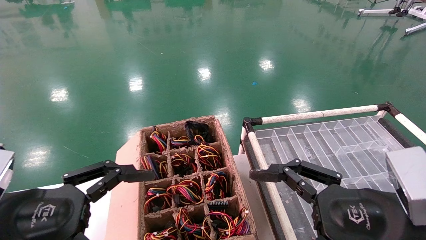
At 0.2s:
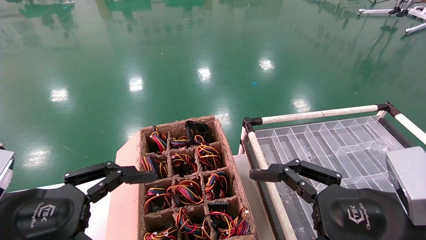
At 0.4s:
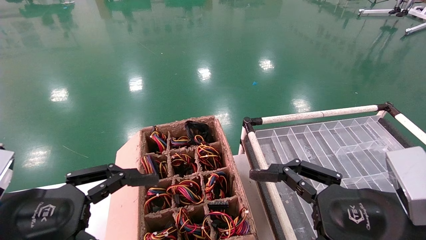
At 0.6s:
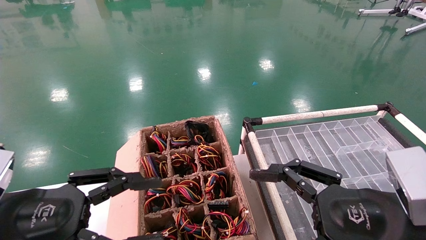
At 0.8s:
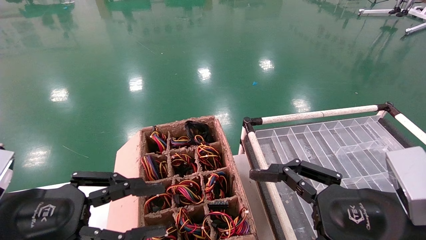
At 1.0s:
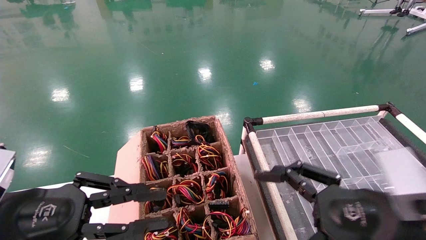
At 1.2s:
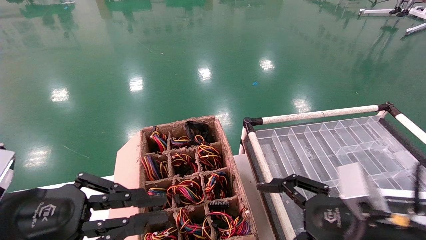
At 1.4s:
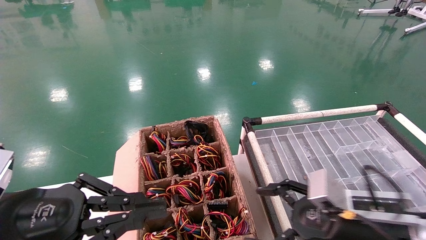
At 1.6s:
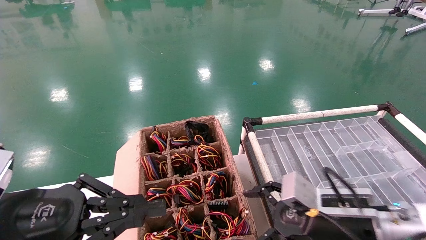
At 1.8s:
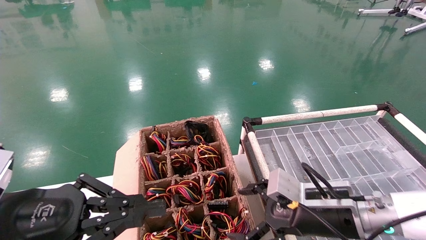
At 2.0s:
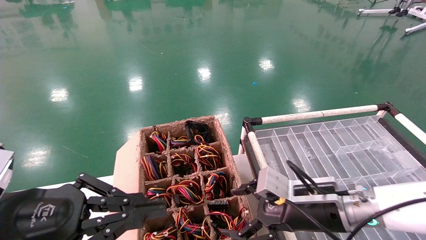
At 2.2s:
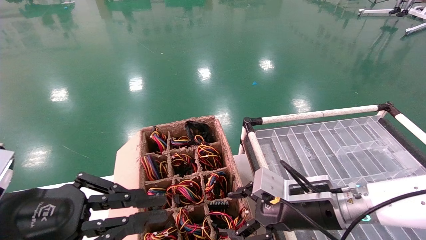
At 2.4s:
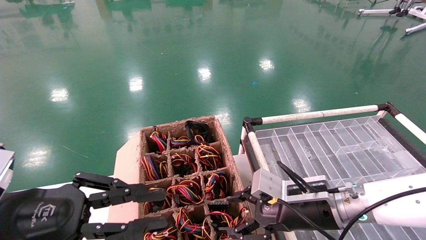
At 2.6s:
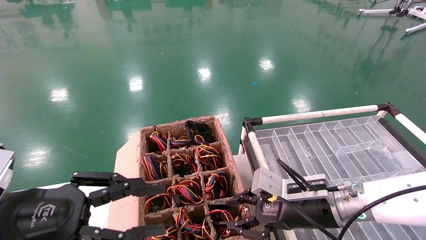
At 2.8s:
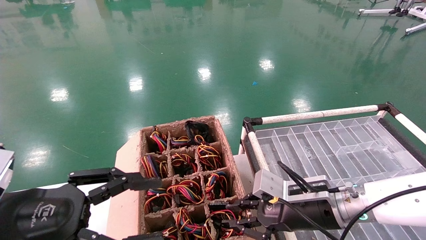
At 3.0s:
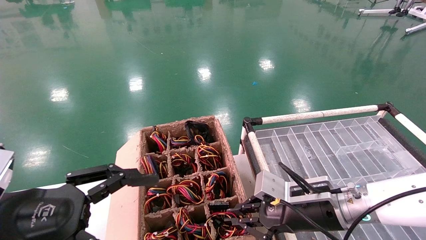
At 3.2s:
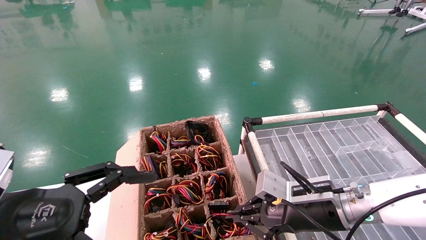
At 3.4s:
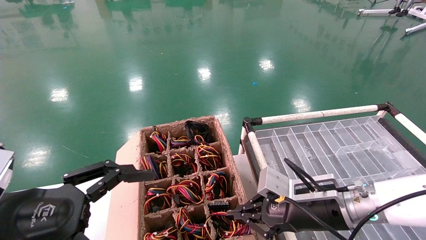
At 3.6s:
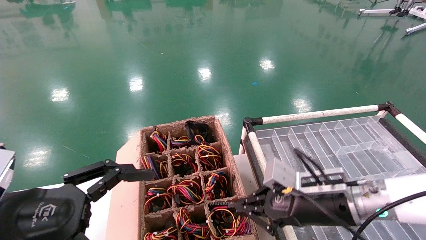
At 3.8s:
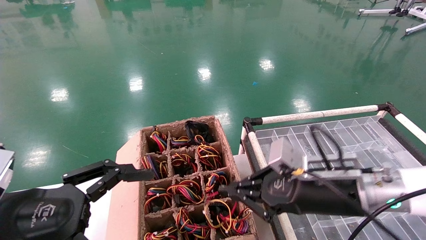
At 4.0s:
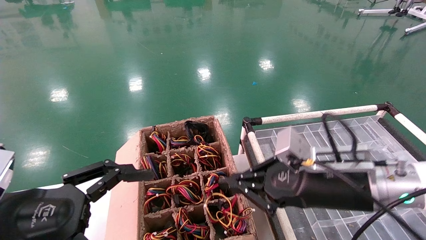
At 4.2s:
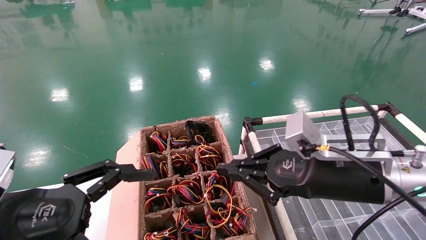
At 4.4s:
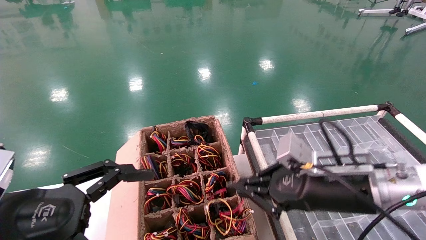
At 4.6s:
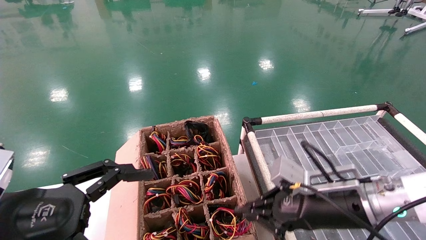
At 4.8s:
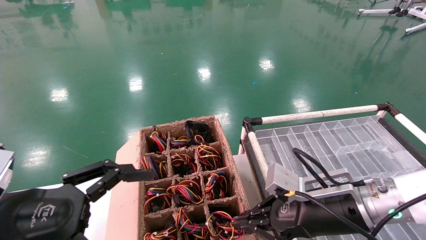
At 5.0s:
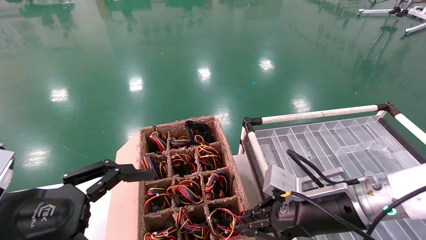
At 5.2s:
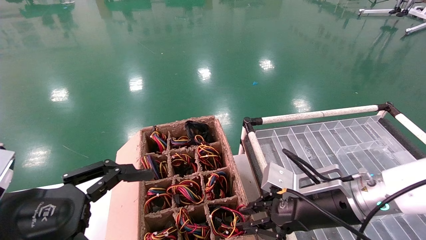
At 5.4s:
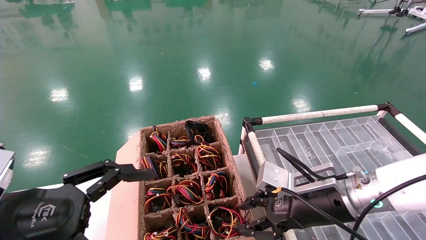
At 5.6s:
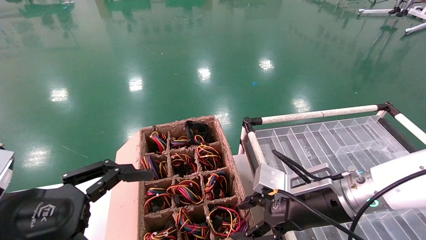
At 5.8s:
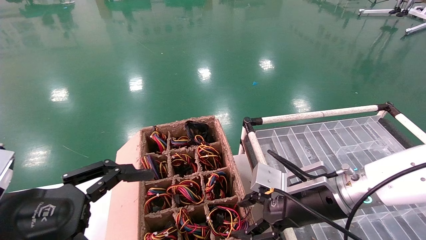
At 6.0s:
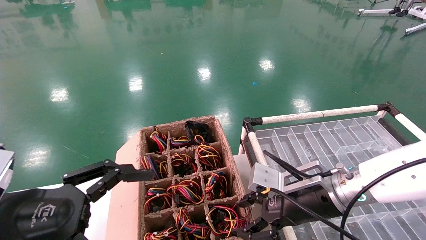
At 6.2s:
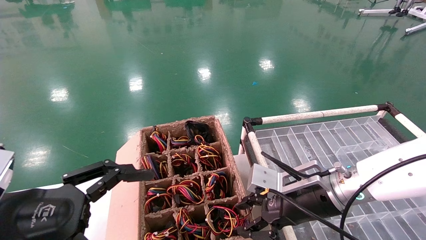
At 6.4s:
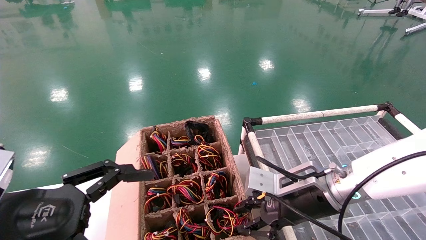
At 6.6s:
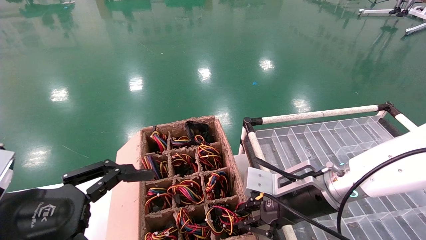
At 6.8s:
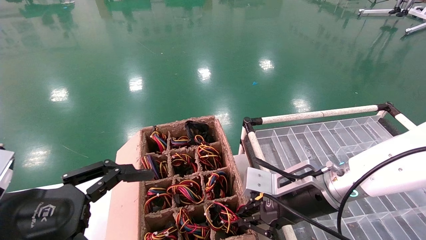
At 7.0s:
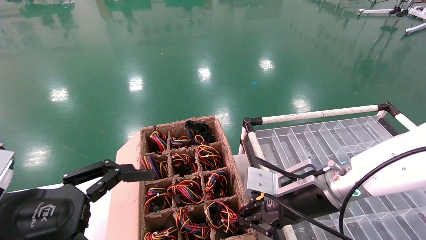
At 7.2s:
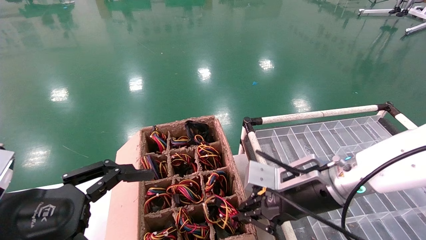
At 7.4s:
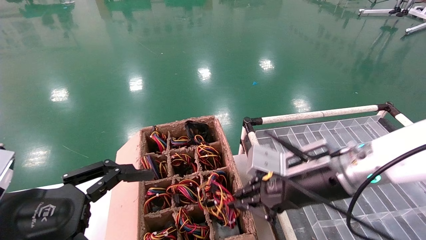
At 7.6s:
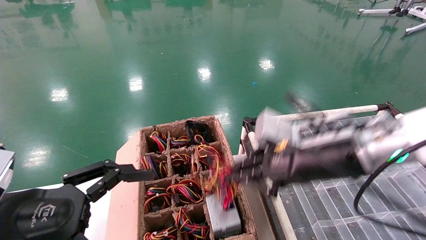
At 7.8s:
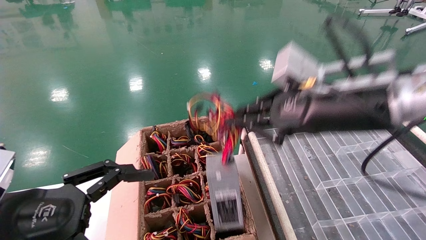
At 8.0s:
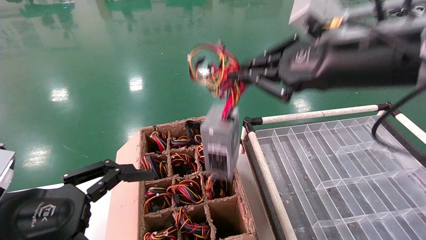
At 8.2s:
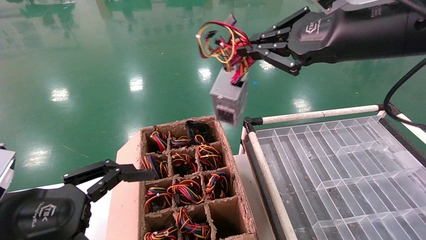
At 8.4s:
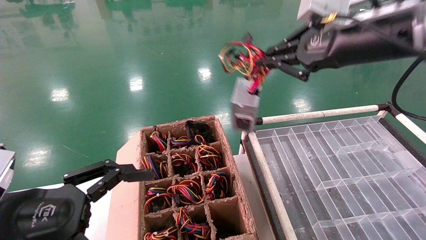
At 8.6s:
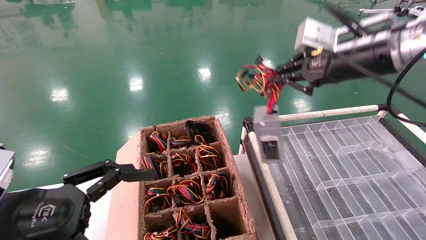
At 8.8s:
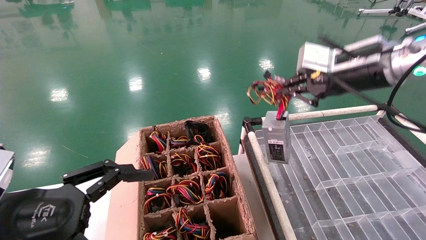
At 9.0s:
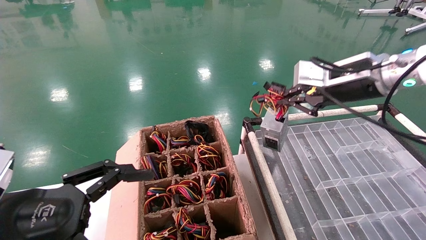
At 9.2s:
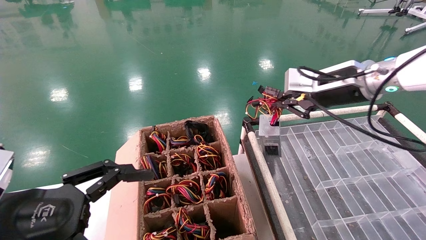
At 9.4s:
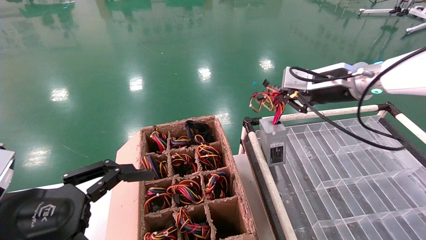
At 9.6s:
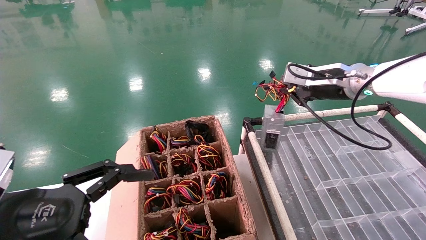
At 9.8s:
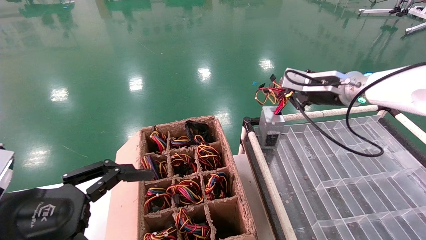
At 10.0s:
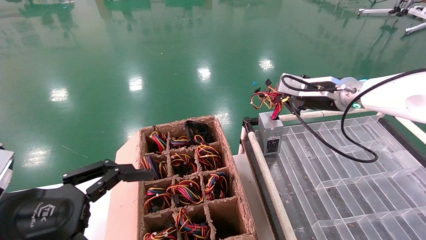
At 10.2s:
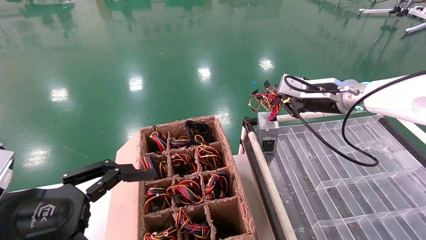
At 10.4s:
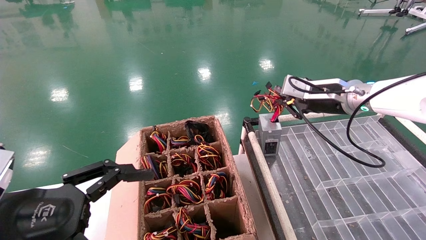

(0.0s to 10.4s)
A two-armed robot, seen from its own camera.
Step, 1.8s - 6.8s: Grab and lift the power supply from the large box.
0.0s - 1.4s: The left gripper closes, while the right gripper is displaced forward and downward by approximately 10 cm.
1.4s - 3.0s: The left gripper opens up, while the right gripper moves forward, some 5 cm, and closes up.
3.0s - 4.4s: The right gripper shifts roughly 5 cm upward. The left gripper opens.
4.4s - 6.0s: The right gripper opens.
6.0s - 7.4s: The right gripper shifts some 5 cm upward, and closes up.
7.4s - 9.0s: The right gripper moves upward, to the right and forward, roughly 20 cm.
9.0s - 10.4s: The right gripper goes roughly 10 cm forward and downward.

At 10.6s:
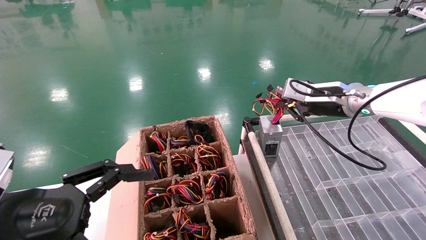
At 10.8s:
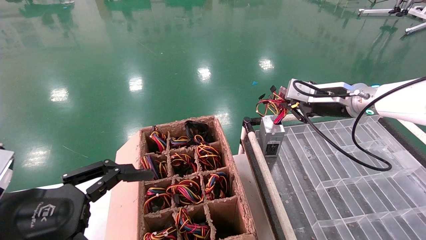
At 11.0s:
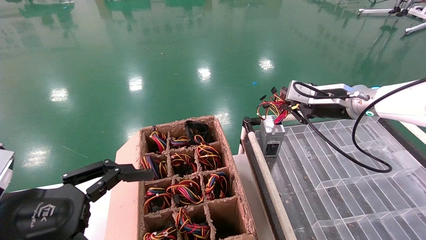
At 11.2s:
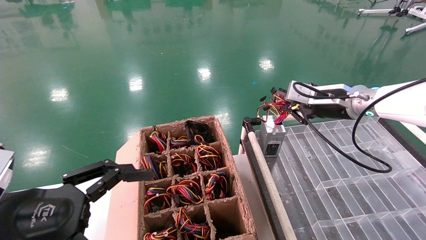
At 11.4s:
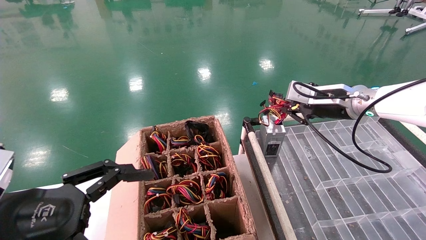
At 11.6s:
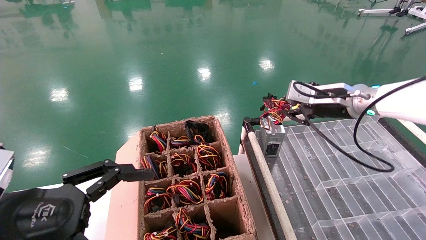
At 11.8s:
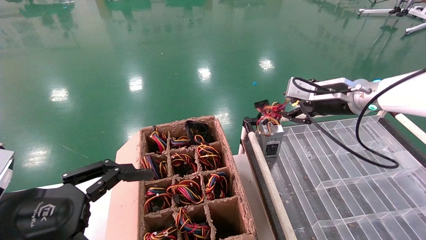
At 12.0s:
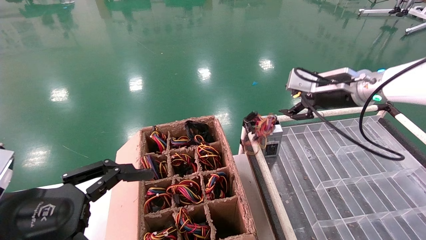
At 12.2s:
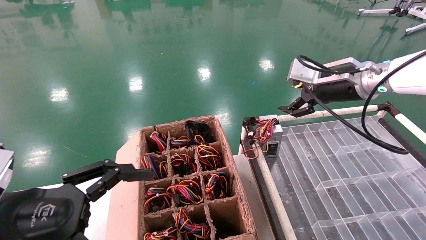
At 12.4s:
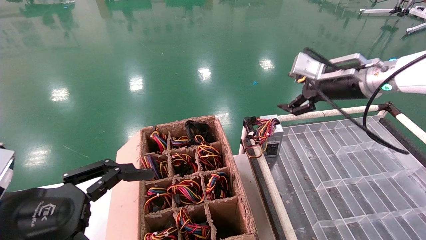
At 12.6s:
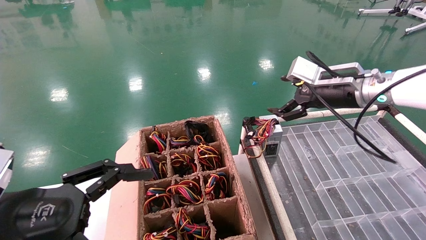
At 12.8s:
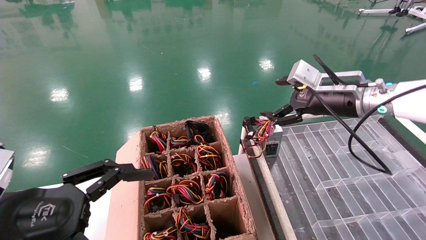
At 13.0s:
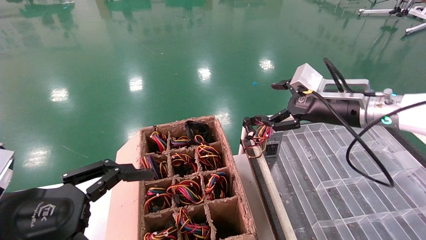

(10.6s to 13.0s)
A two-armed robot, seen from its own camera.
10.6s - 11.8s: The right gripper opens its fingers.
11.8s - 13.0s: The right gripper opens up.

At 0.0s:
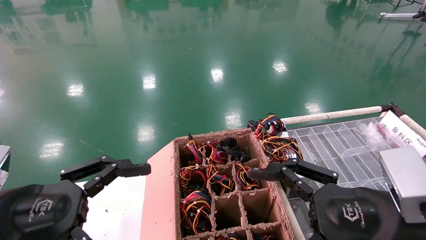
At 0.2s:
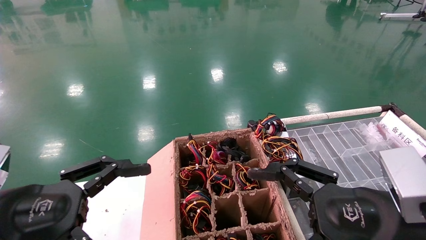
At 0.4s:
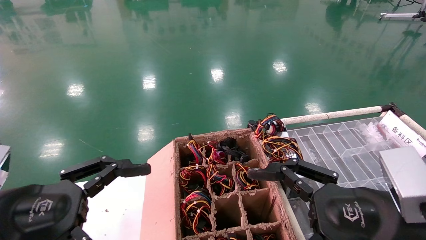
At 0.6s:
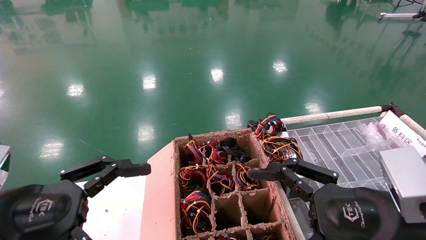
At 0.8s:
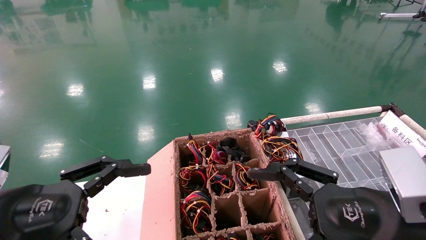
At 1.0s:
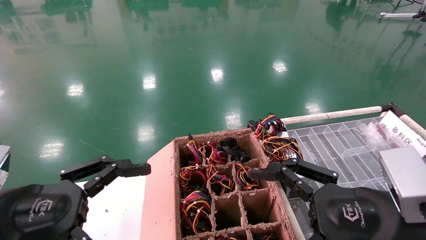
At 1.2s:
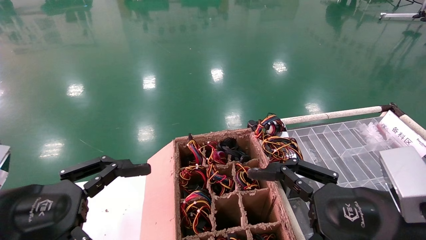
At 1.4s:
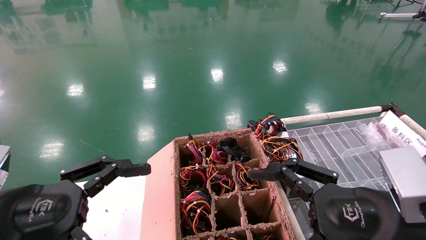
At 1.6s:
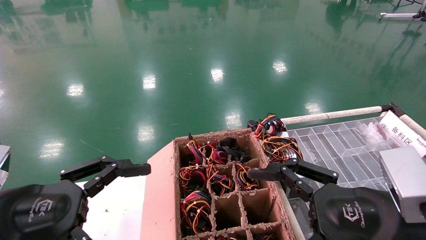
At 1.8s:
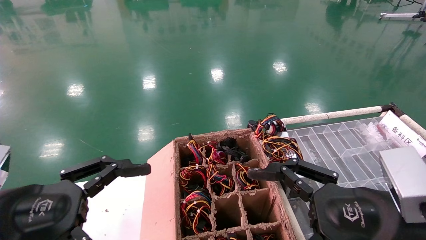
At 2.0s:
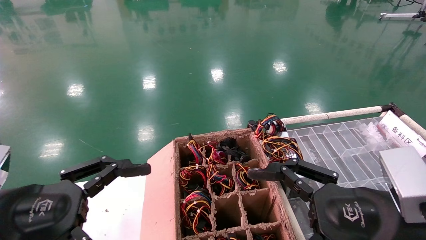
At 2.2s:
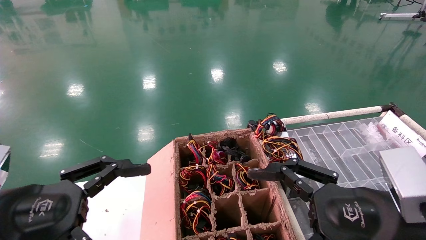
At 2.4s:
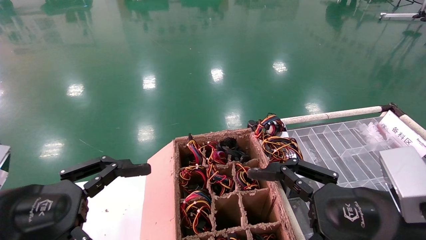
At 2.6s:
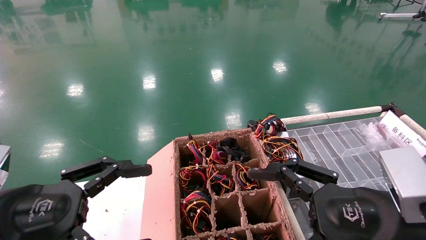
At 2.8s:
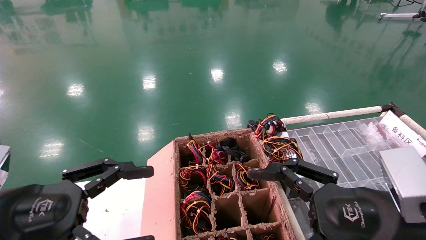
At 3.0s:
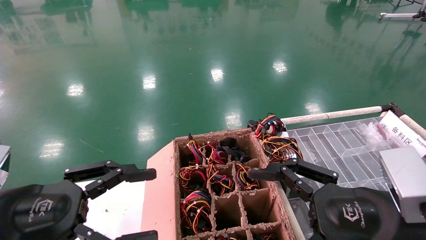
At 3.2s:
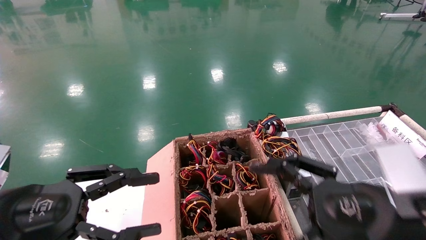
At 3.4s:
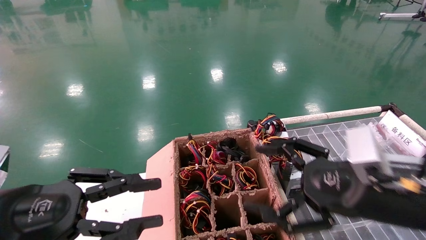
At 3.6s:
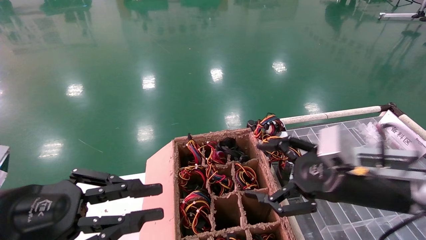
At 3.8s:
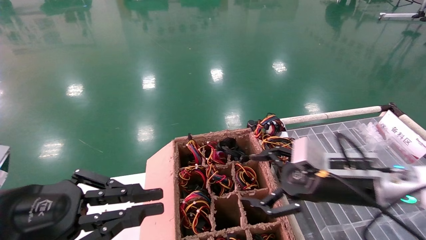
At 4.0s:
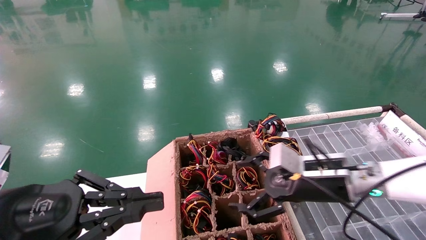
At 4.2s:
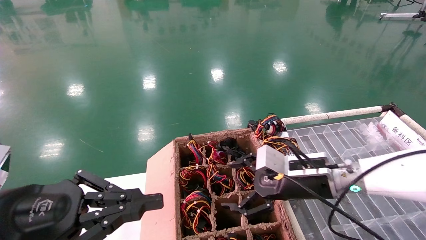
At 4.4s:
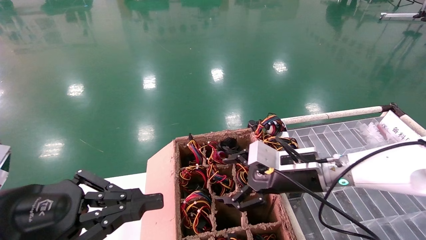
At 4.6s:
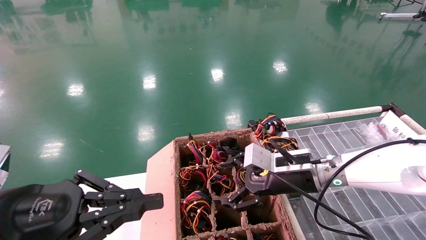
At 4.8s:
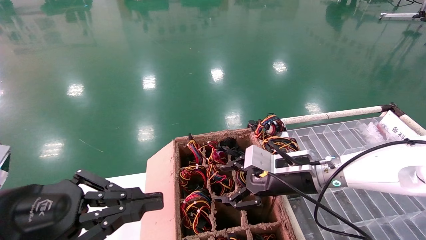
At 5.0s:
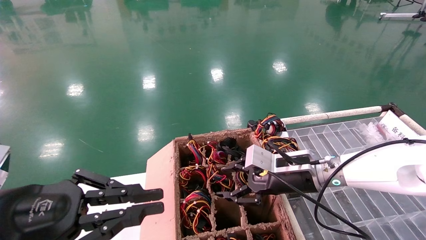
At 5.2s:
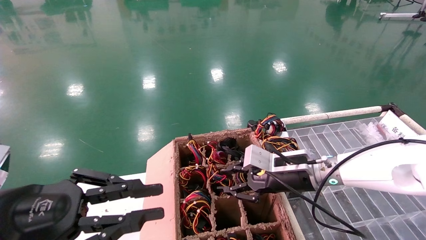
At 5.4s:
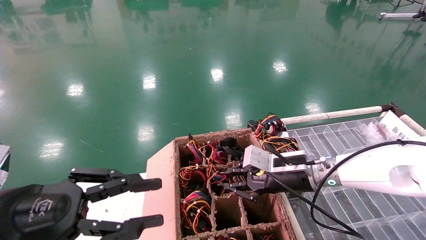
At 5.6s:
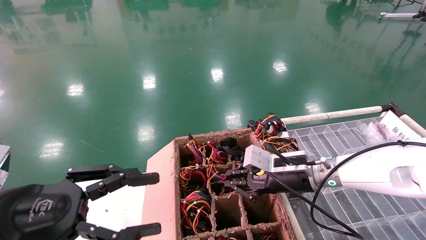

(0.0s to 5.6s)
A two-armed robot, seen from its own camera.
0.0s - 2.8s: Neither gripper changes place.
2.8s - 4.2s: The left gripper closes; the right gripper is displaced forward by roughly 20 cm.
4.2s - 5.6s: The right gripper closes its fingers; the left gripper opens up.
